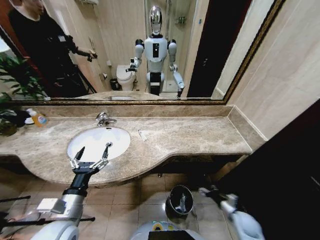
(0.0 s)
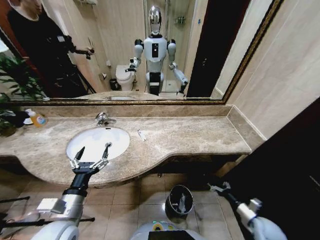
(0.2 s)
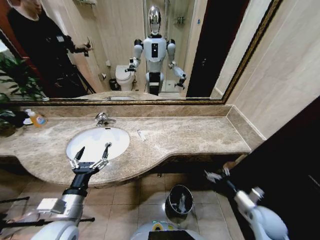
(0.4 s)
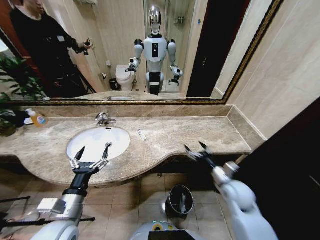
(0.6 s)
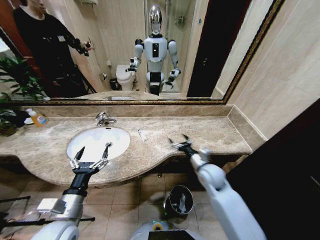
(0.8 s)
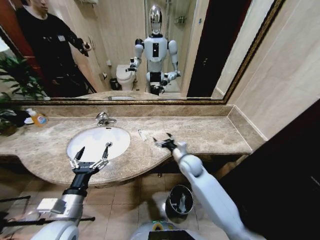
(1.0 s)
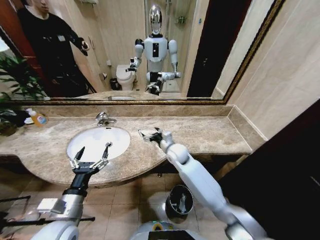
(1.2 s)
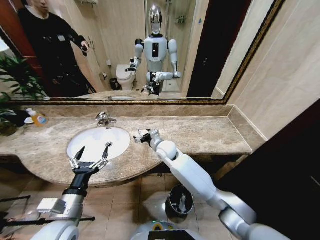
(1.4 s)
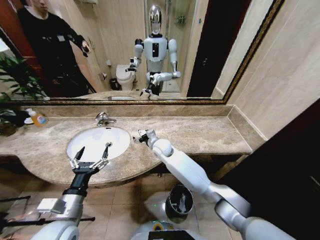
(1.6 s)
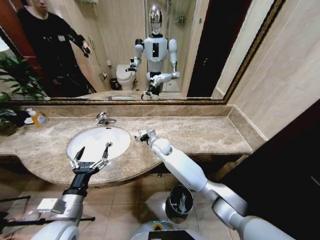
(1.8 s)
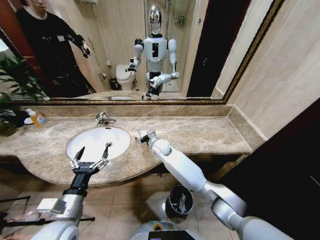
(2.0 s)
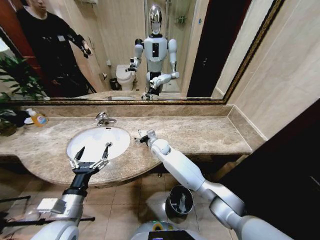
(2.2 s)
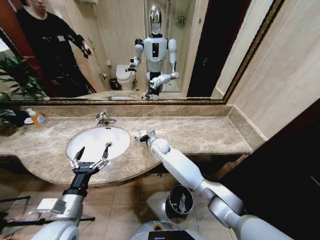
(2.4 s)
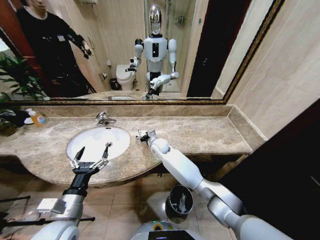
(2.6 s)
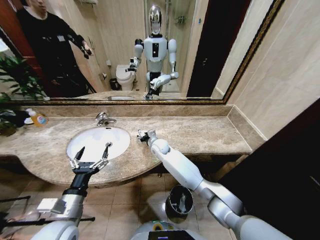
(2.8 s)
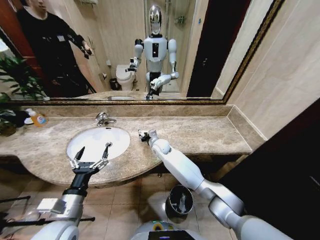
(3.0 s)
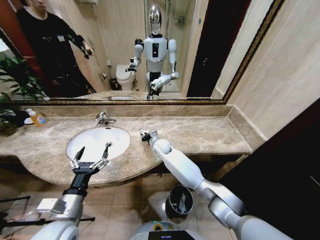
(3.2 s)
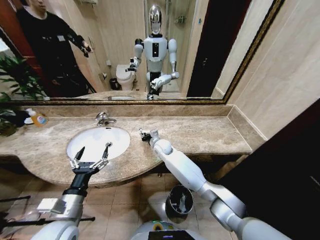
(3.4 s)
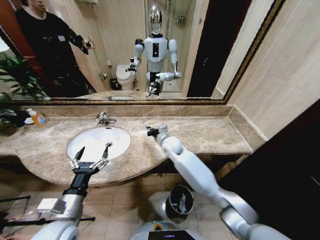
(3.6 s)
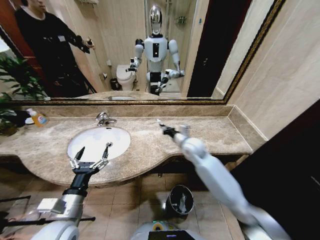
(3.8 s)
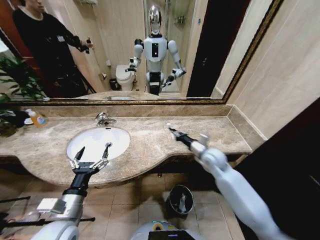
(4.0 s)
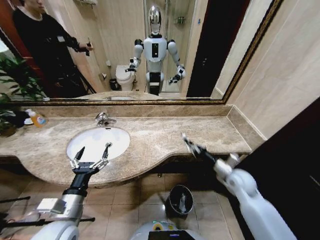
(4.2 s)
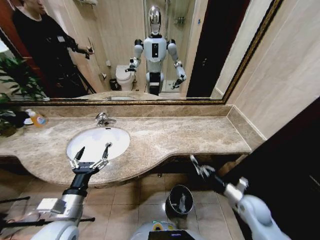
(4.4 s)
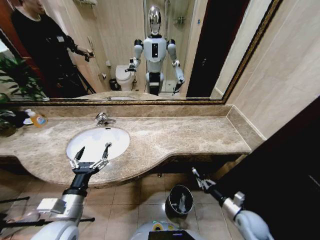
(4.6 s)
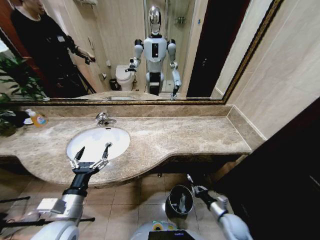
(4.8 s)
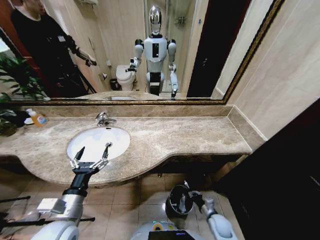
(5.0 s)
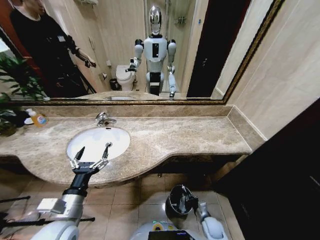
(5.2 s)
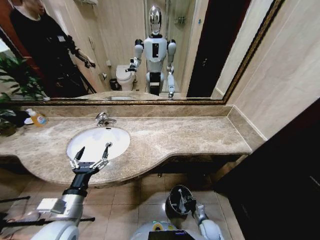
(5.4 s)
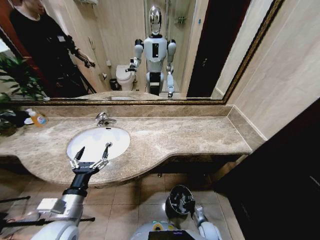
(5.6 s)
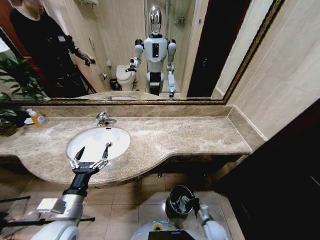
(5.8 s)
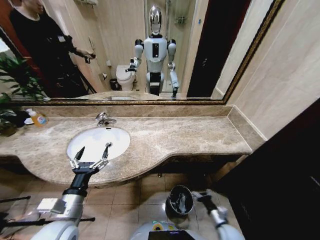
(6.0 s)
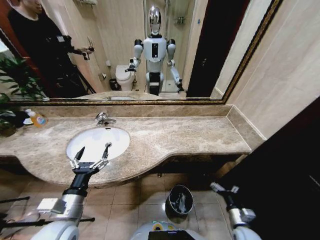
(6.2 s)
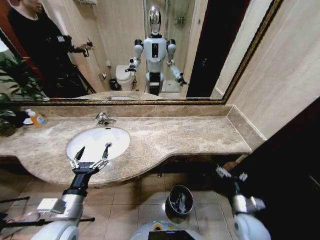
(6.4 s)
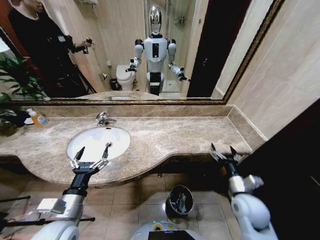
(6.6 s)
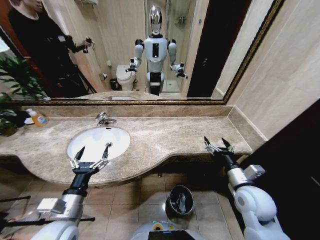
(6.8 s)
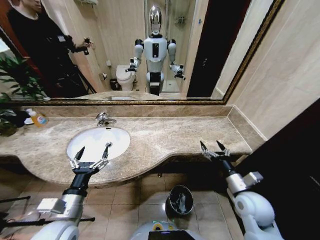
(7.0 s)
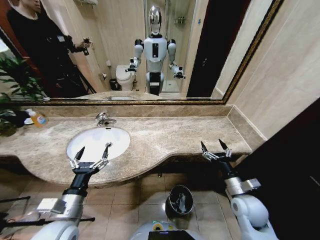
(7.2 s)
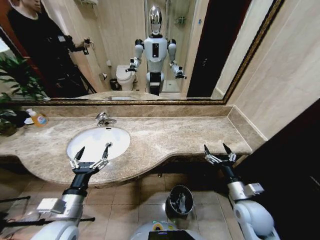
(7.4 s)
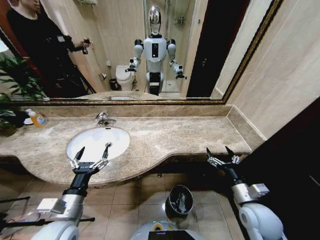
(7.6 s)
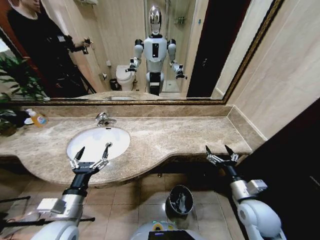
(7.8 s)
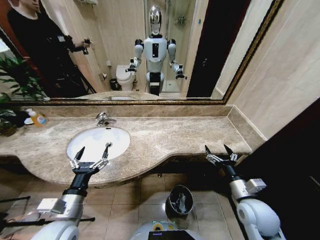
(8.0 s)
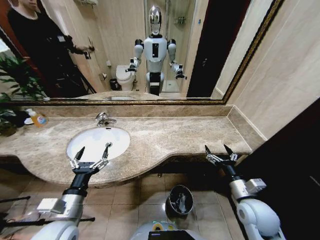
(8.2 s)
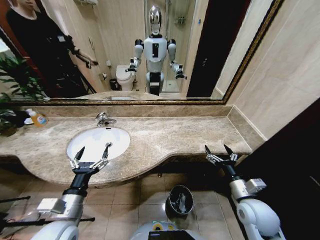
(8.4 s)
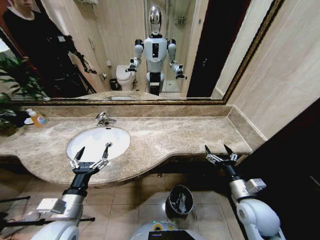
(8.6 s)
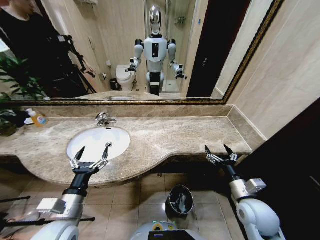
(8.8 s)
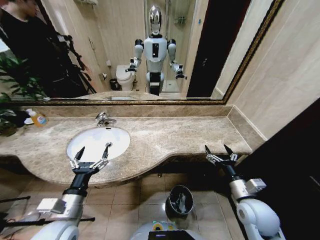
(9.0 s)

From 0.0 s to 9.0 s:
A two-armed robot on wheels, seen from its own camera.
Task of the whole recording: Pick up the trash from the sink and place it in the trash bin.
From 0.0 s to 1.6 s: The right gripper goes some 50 cm to the left, forward and upward, and opens its fingers.
From 1.6 s to 3.0 s: The right gripper changes place by about 5 cm, and closes up.
From 3.0 s to 4.4 s: The right gripper heads to the right and backward, covering about 50 cm, and closes its fingers.
From 4.4 s to 6.0 s: The right gripper goes some 15 cm downward, backward and to the left, and opens its fingers.
From 6.0 s to 7.6 s: The right gripper moves upward, approximately 20 cm.
From 7.6 s to 9.0 s: The grippers make only small movements.
